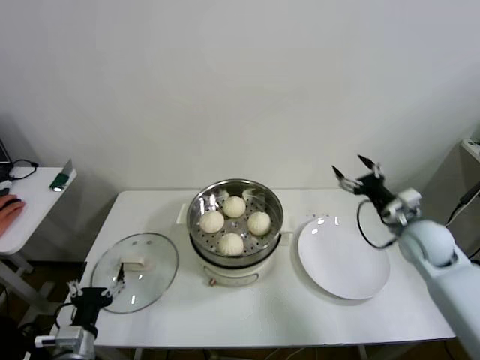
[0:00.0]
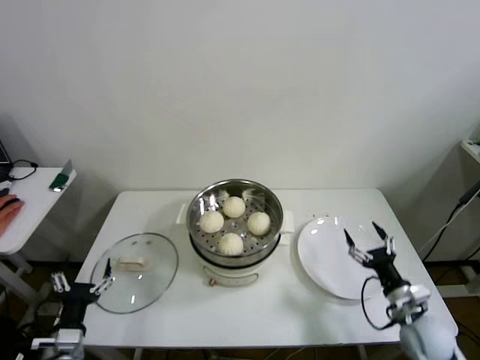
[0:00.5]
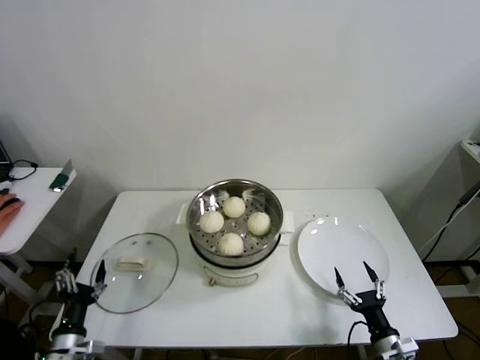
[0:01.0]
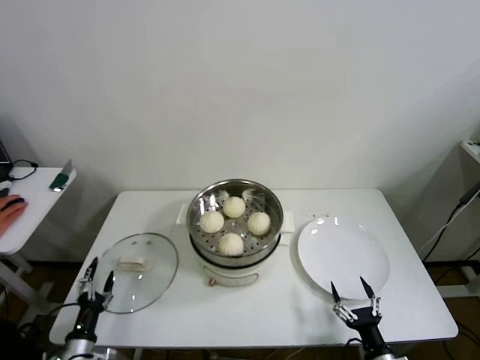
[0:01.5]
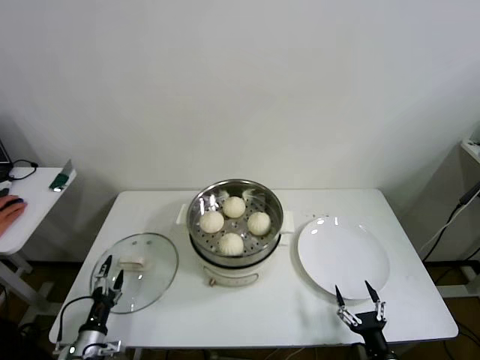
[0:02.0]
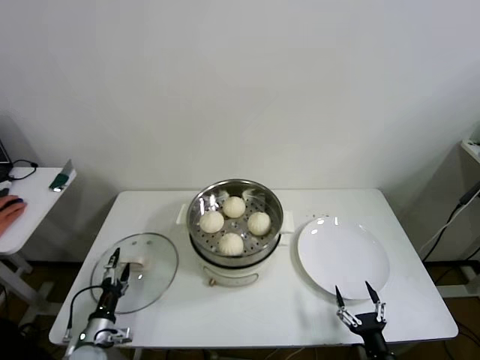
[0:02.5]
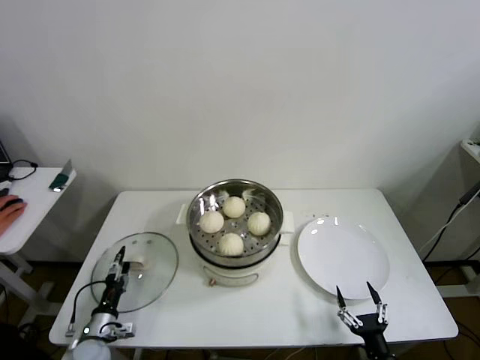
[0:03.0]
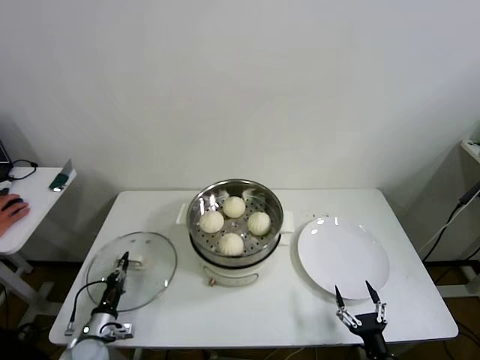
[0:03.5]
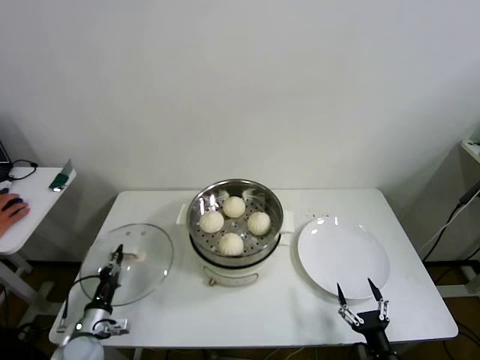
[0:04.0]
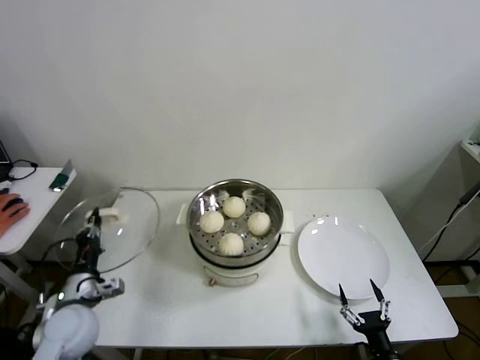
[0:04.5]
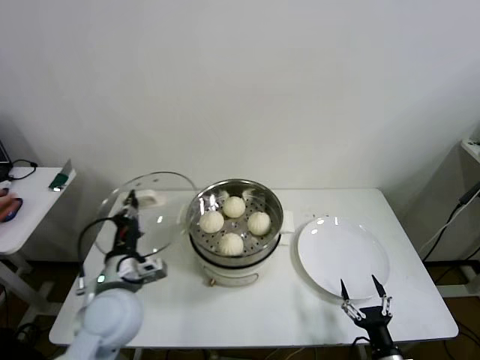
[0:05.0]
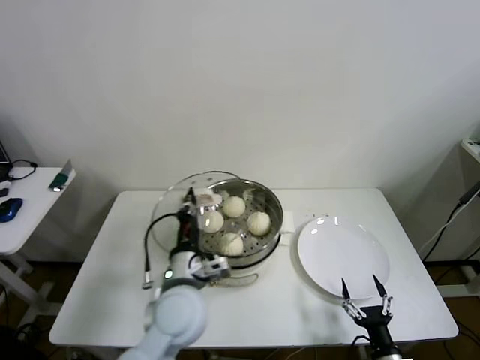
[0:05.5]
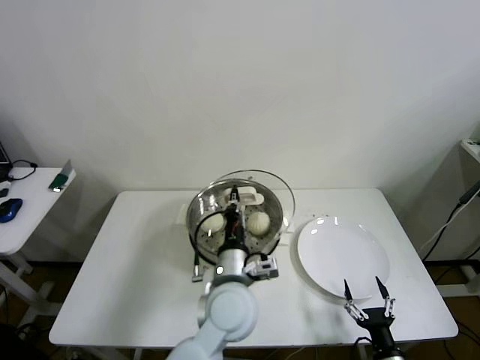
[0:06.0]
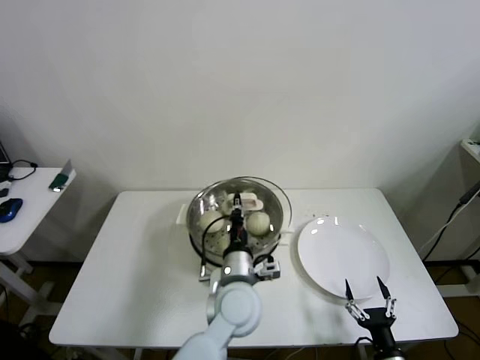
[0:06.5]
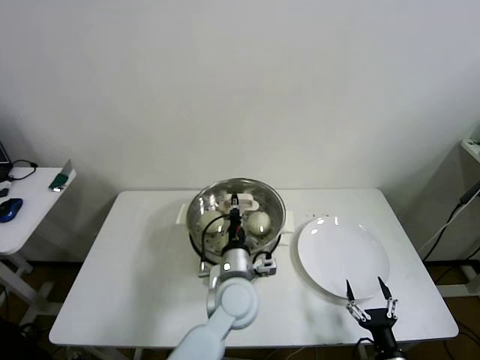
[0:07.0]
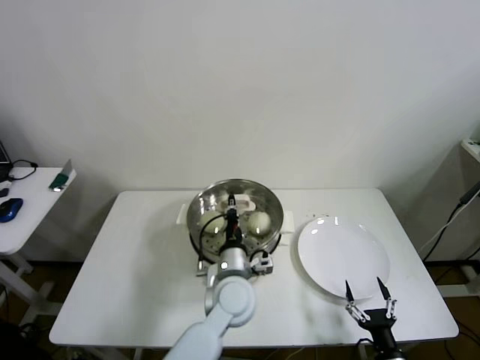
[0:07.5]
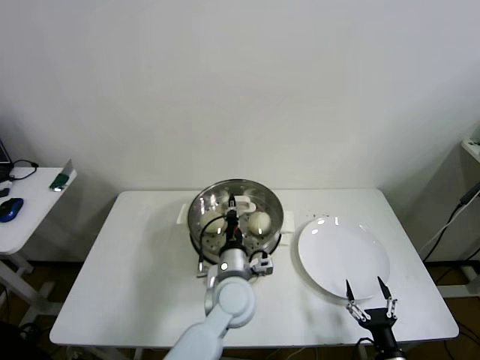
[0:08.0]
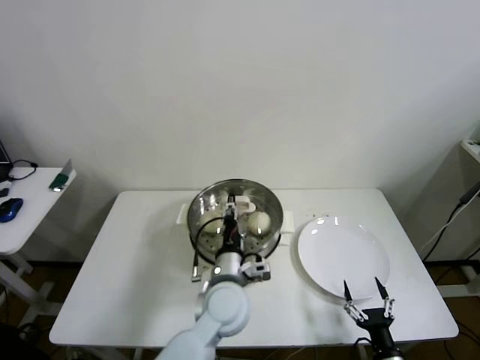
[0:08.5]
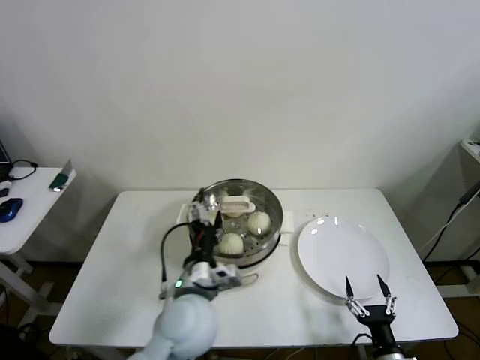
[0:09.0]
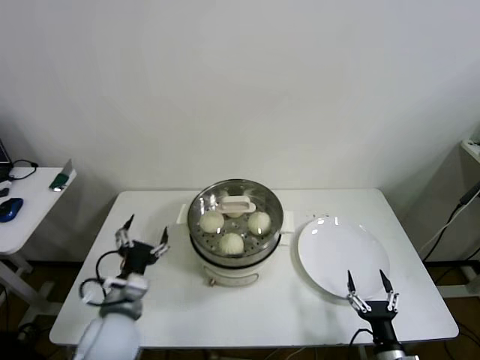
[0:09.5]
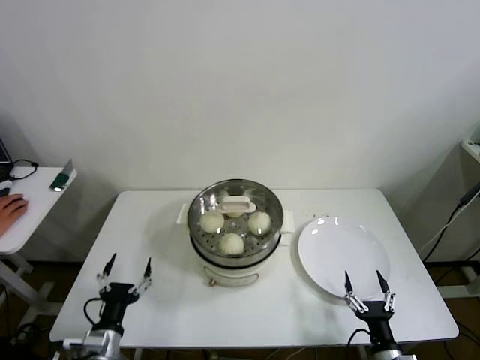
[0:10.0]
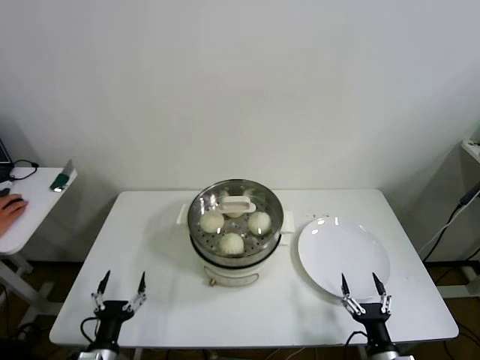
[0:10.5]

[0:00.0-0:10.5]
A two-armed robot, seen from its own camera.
Step, 0:00.0 to 0:03.0: Grasp the pot lid with left gripper.
Step, 0:04.0 to 0:08.5: Place the pot lid on the steamer with left gripper.
0:00.0 to 0:02.0: The right gripper moves backward and downward, some 35 cm; the left gripper travels downward and to the left by approximately 15 cm.
0:02.0 to 0:04.0: The left gripper closes.
0:04.0 to 0:06.5: The left gripper goes about 40 cm to the right and upward.
0:06.5 to 0:08.5: The left gripper opens its fingers.
0:08.5 to 0:10.5: The left gripper goes about 35 cm to the left, backward and downward, and opens.

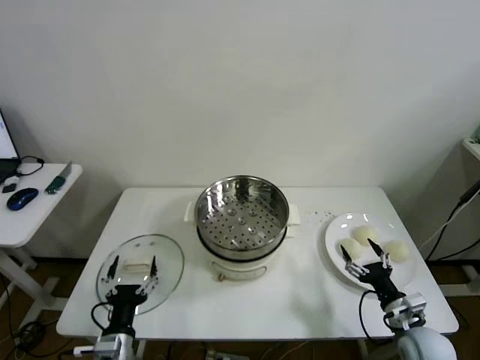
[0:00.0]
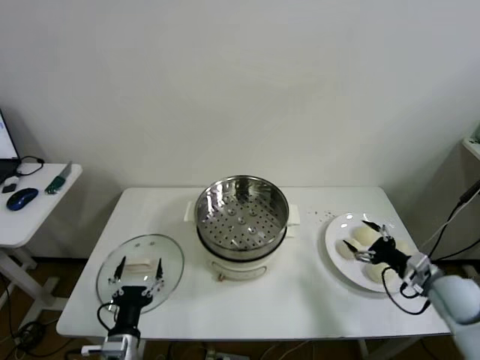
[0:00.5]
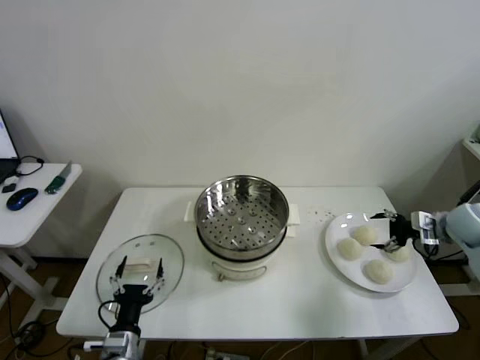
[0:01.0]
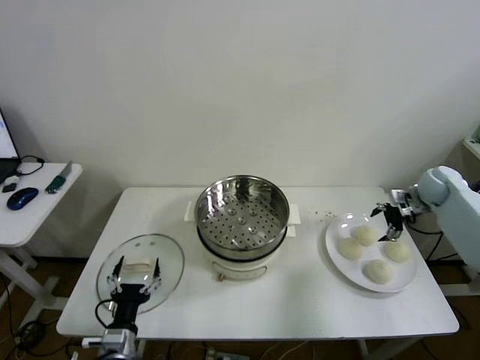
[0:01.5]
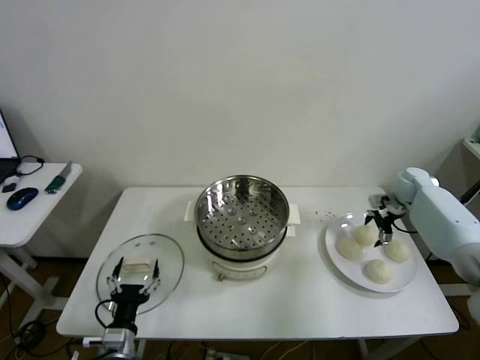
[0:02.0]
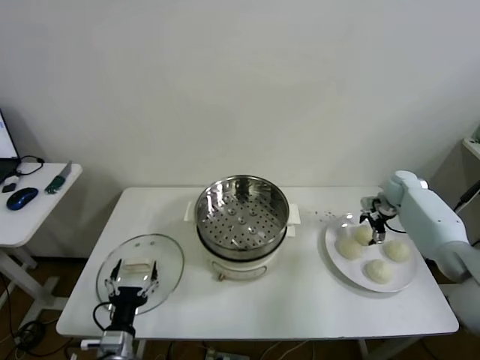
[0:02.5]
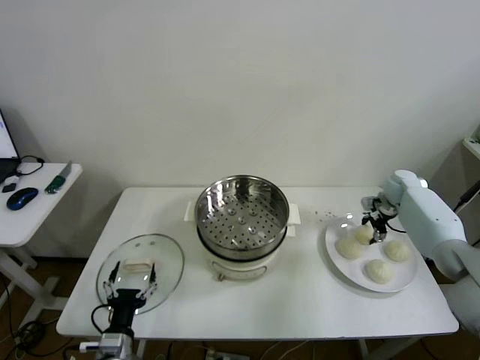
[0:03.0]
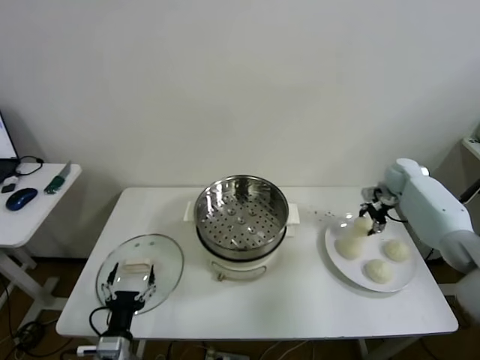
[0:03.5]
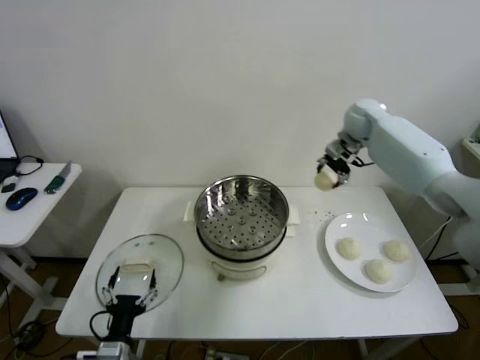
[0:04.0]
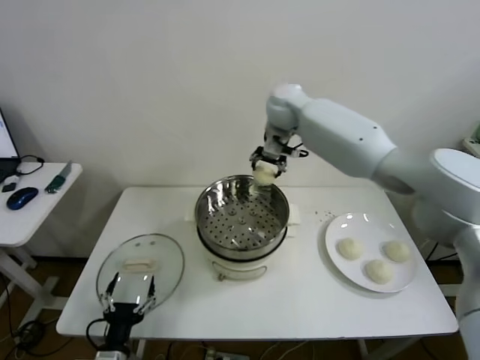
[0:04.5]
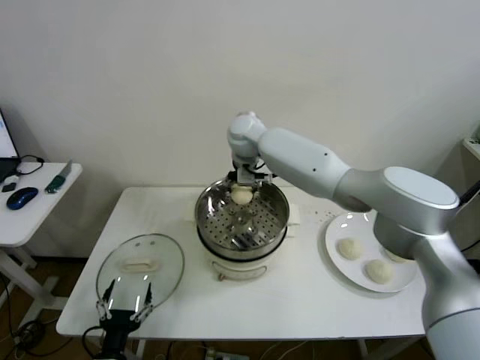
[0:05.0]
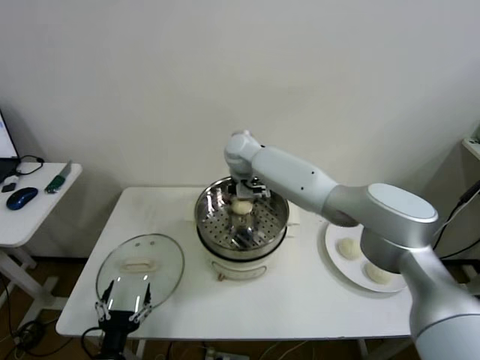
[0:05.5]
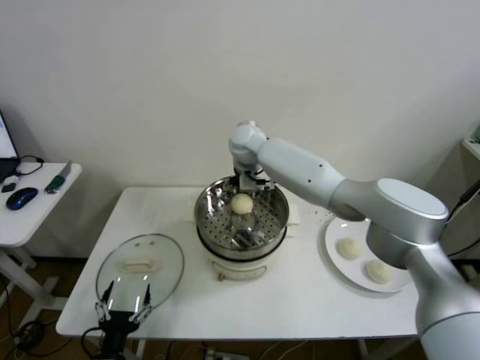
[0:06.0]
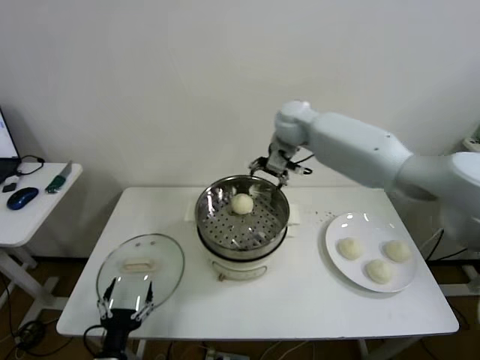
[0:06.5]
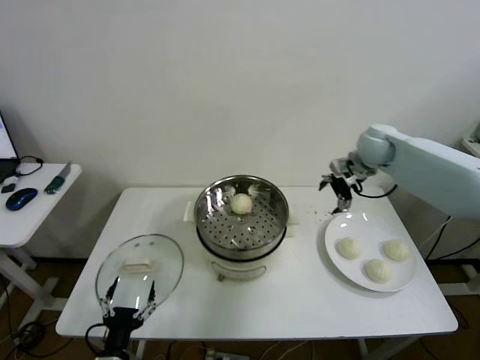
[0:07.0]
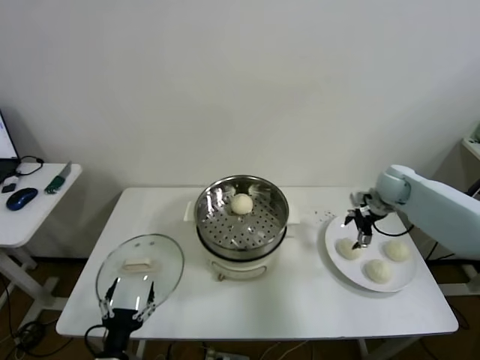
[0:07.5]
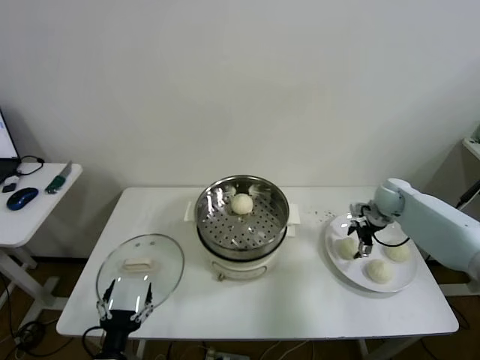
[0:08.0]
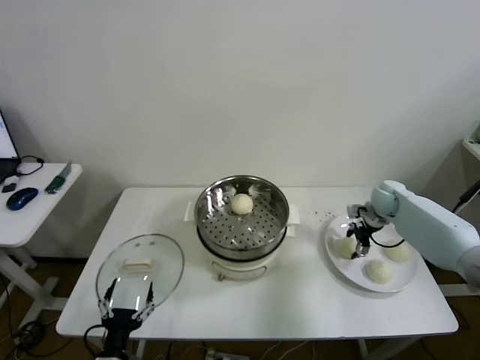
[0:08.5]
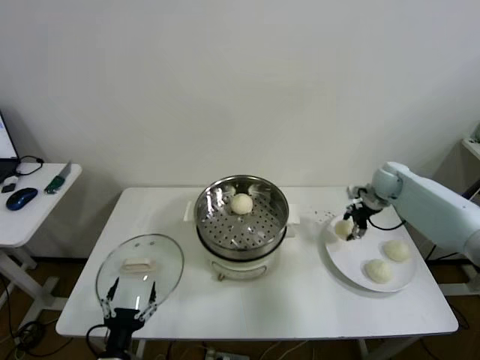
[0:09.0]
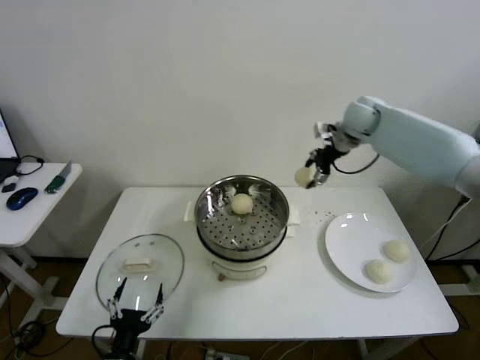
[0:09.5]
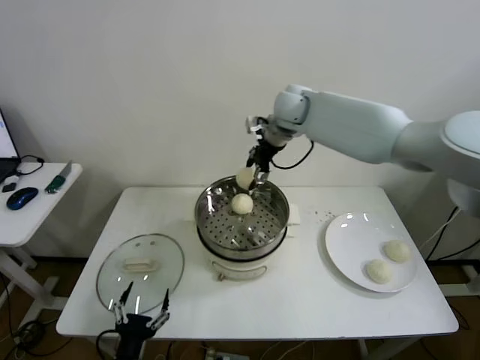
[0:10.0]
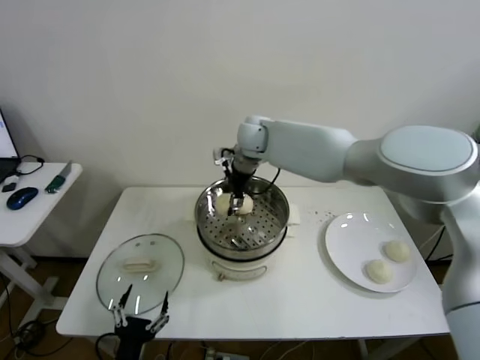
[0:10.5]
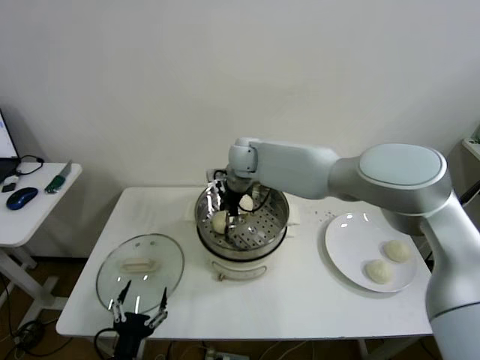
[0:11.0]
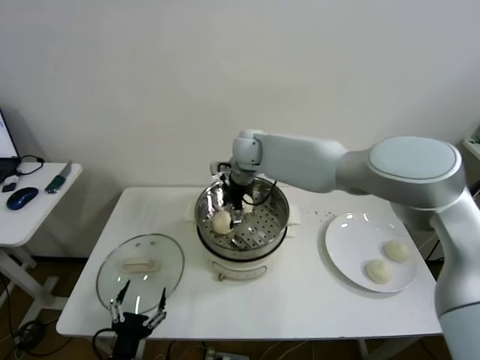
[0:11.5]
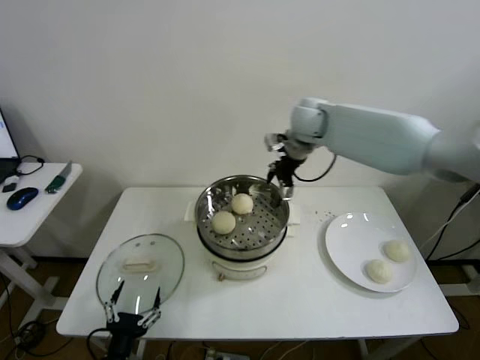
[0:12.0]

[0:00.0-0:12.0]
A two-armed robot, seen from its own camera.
Step, 0:00.0 to 0:02.5: Grasp the baozi in the plate with right gripper.
Step, 0:03.0 to 0:05.5: Place the baozi on the steamer with right gripper.
Step, 0:06.0 to 0:08.0: Grasp the baozi in the plate with right gripper.
Step, 0:08.5 to 0:11.0: Place the baozi on the steamer with right gripper.
0:02.0 to 0:04.0: The right gripper goes about 25 cm upward, to the left and forward, and closes its fingers.
0:04.0 to 0:06.0: The right gripper heads to the left, covering roughly 30 cm, and opens up.
0:06.0 to 0:08.0: The right gripper heads to the right, covering roughly 40 cm.
0:08.0 to 0:10.0: The right gripper shifts about 35 cm to the left and upward, and closes its fingers.
0:10.0 to 0:12.0: The right gripper moves roughly 10 cm to the left and comes back, and opens.

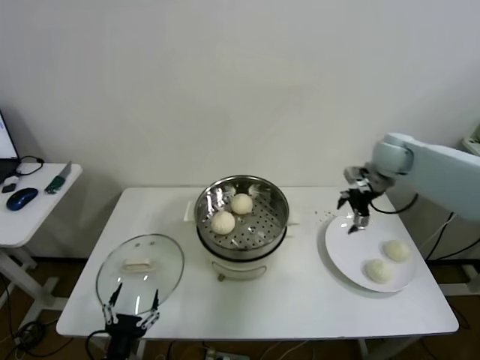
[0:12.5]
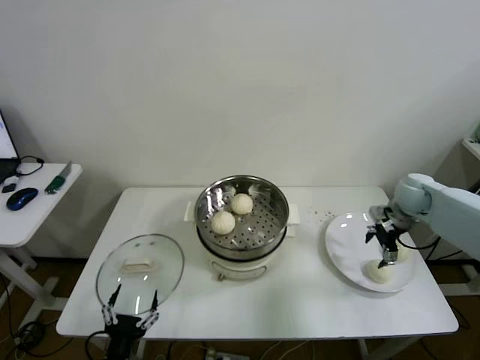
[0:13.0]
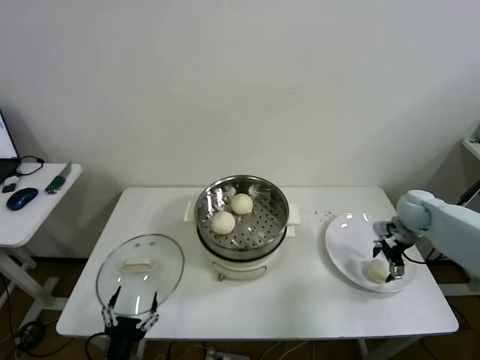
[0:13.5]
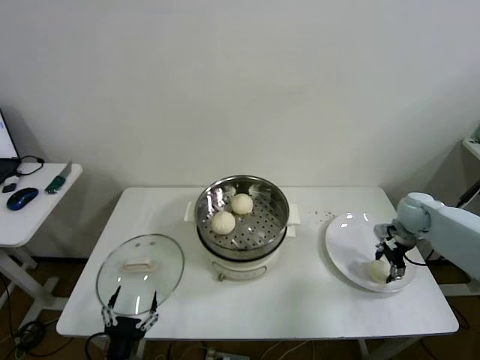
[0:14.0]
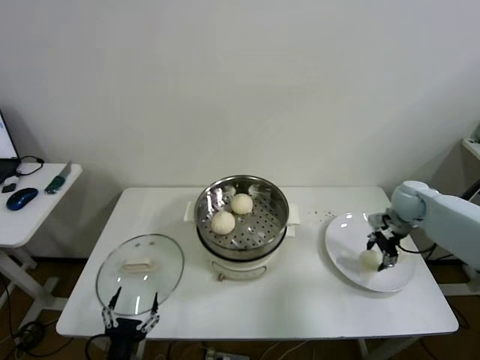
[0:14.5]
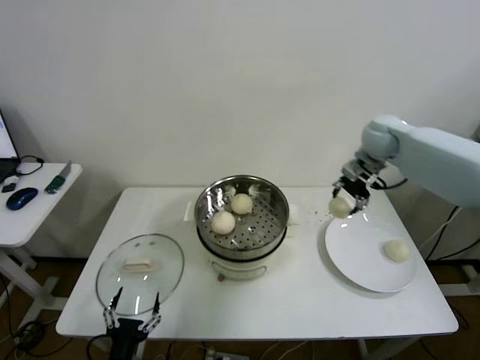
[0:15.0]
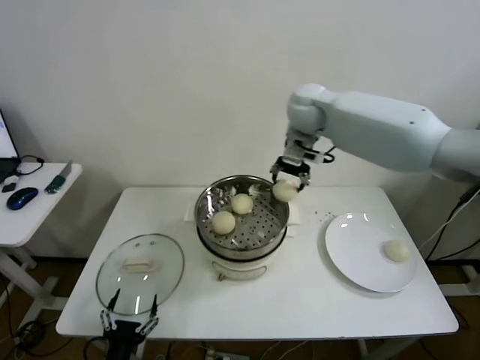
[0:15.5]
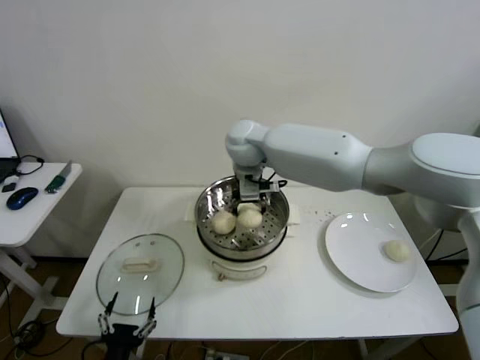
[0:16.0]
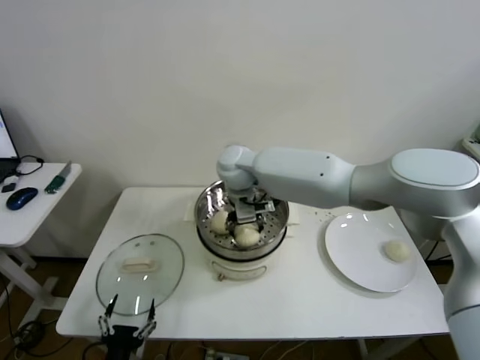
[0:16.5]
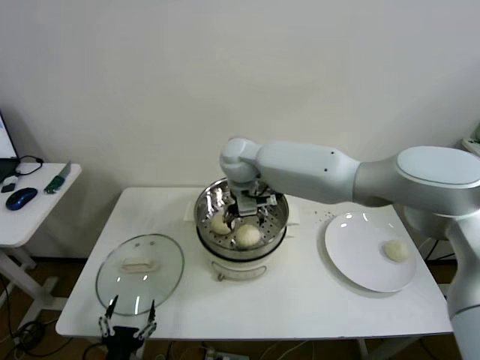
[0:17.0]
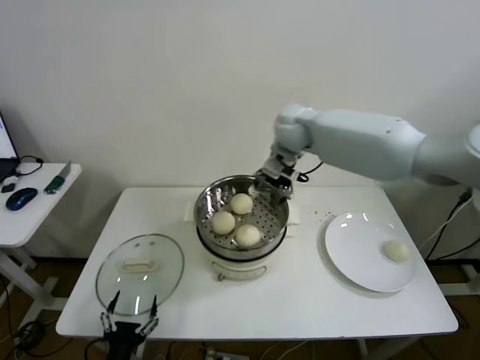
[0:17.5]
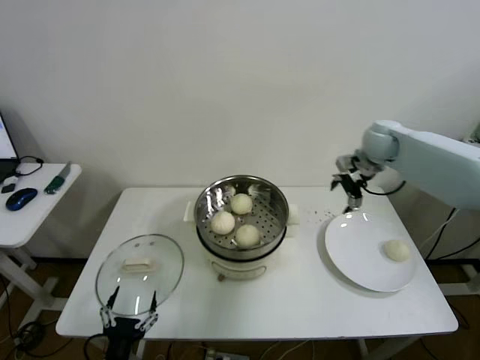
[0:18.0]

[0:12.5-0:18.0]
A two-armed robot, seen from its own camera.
Step, 0:14.0 to 0:16.5: Place the baozi on the steamer with right gripper.
0:12.5 to 0:14.5: The right gripper is displaced downward and to the right by some 15 cm, and closes.
0:14.5 to 0:16.0: The right gripper heads to the left and upward, covering approximately 50 cm.
0:16.0 to 0:18.0: The right gripper heads to the right, covering roughly 30 cm, and opens.
